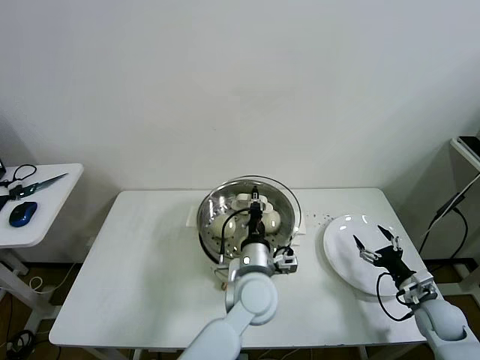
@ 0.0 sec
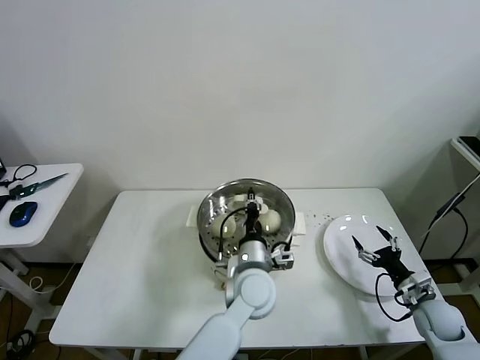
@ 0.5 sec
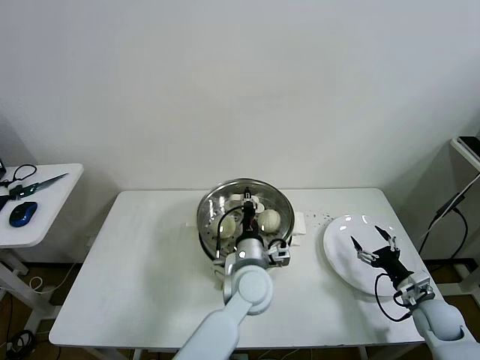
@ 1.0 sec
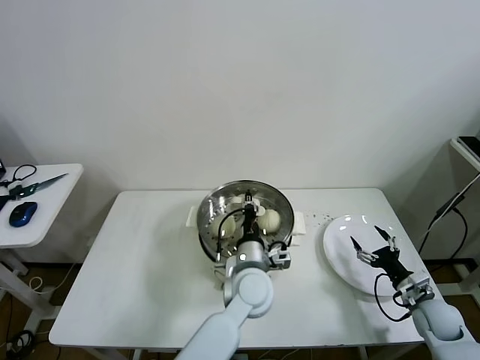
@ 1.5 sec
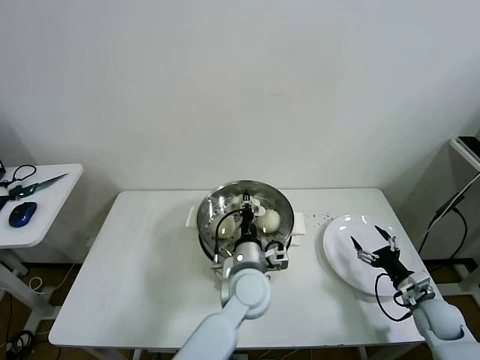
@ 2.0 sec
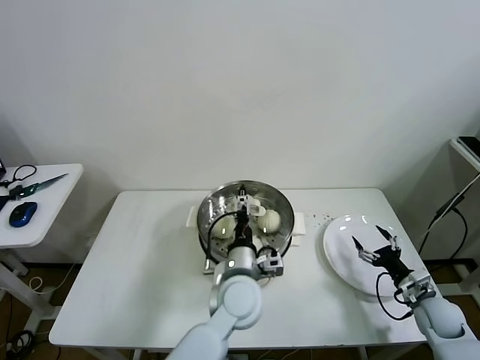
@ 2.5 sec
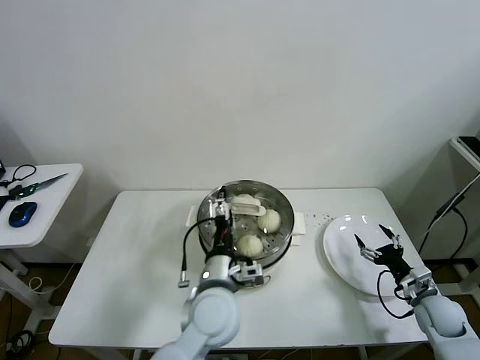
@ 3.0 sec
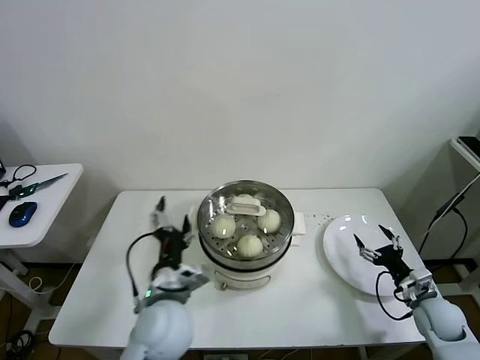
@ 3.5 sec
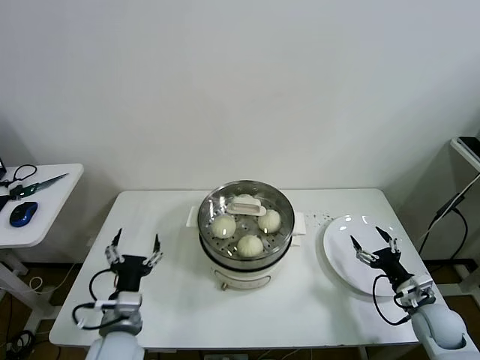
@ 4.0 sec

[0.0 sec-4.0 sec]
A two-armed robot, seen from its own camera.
Task of the whole recording: take steamed baozi put them in steamer then cover it.
Step, 0.0 sec to 2.0 sec: Place the pot lid on the steamer with left gripper.
0.0 sec to 2.0 sec: The grippers move only a little.
2.0 sec to 4.0 sec: The left gripper is displaced to the left and backward by approximately 25 cm, and opens.
